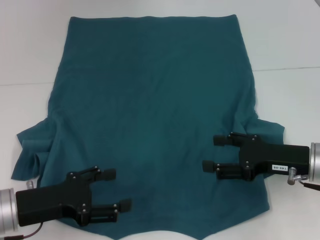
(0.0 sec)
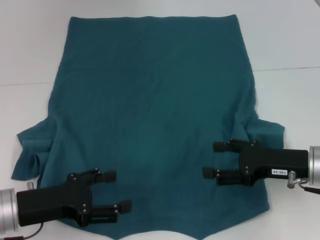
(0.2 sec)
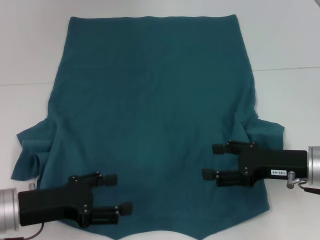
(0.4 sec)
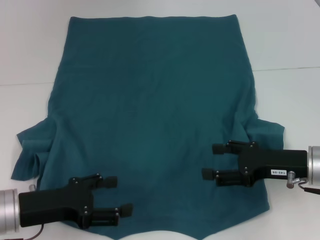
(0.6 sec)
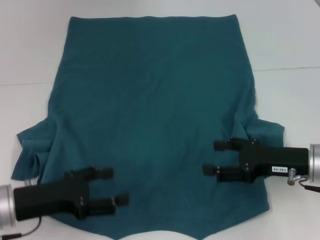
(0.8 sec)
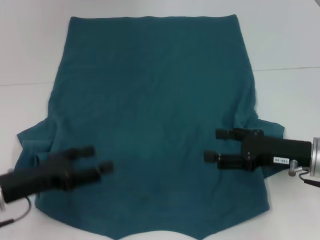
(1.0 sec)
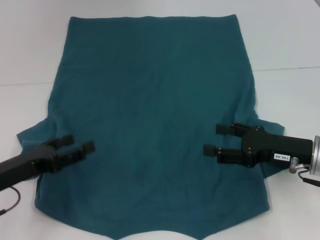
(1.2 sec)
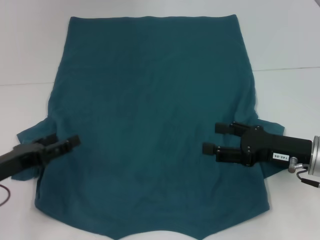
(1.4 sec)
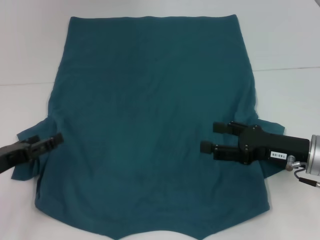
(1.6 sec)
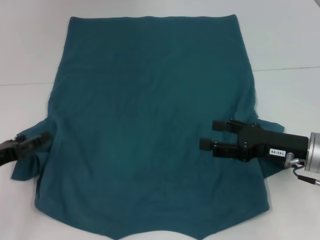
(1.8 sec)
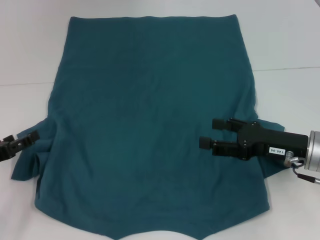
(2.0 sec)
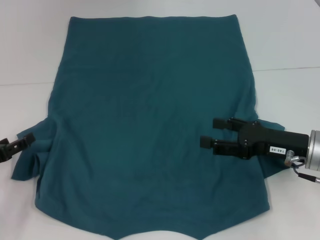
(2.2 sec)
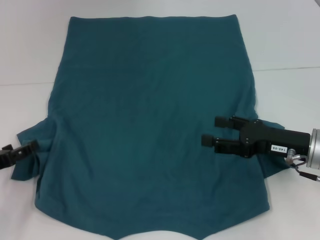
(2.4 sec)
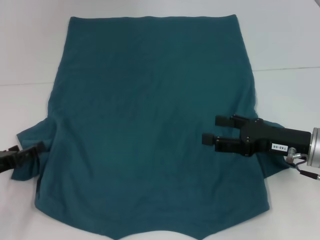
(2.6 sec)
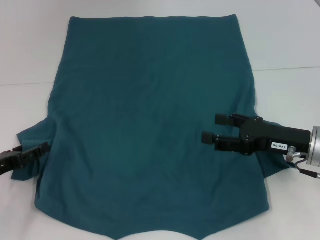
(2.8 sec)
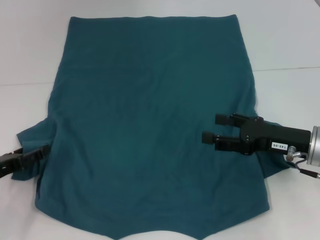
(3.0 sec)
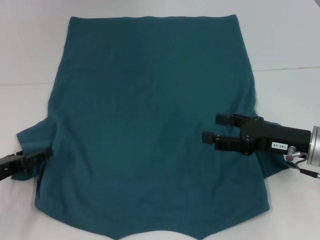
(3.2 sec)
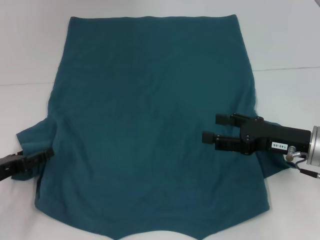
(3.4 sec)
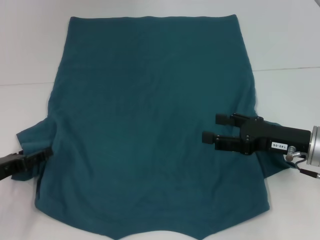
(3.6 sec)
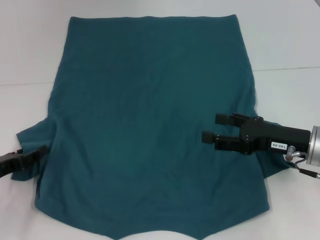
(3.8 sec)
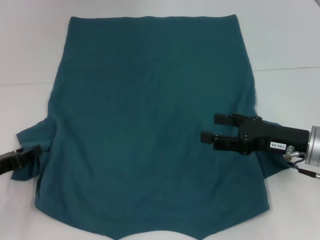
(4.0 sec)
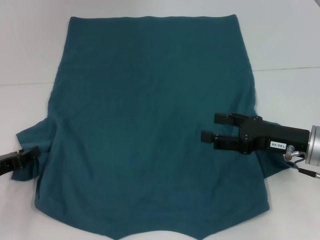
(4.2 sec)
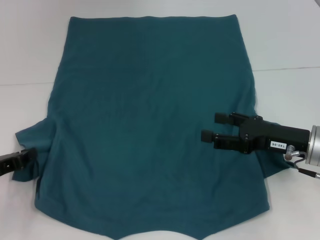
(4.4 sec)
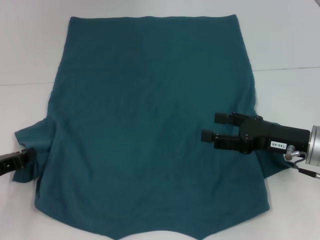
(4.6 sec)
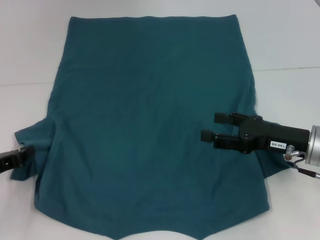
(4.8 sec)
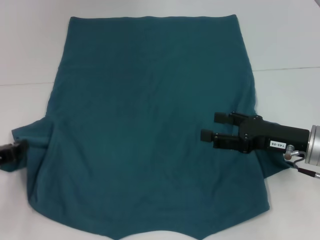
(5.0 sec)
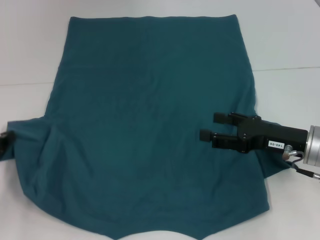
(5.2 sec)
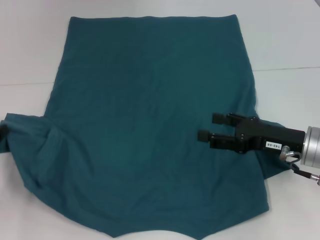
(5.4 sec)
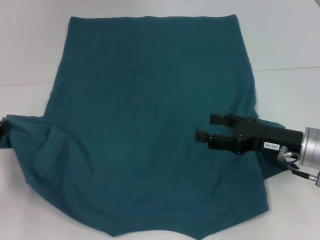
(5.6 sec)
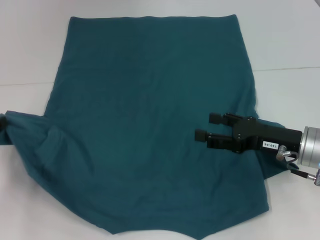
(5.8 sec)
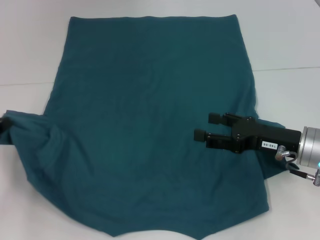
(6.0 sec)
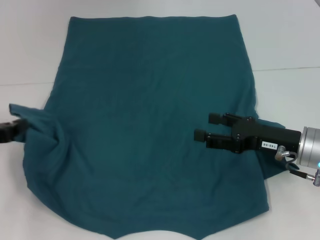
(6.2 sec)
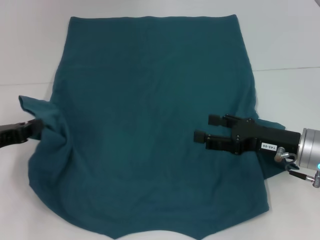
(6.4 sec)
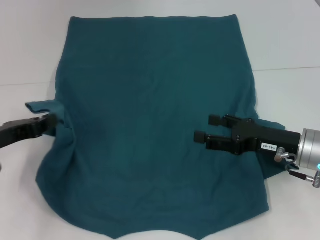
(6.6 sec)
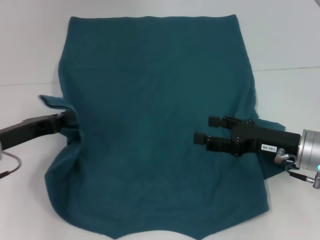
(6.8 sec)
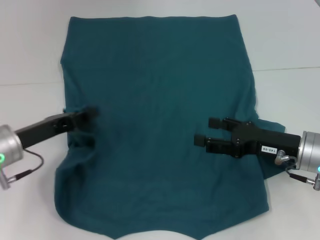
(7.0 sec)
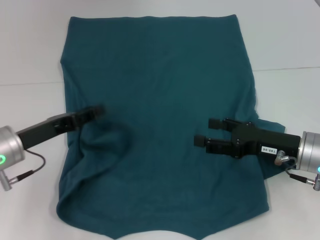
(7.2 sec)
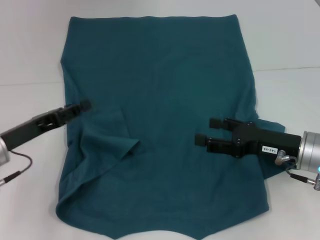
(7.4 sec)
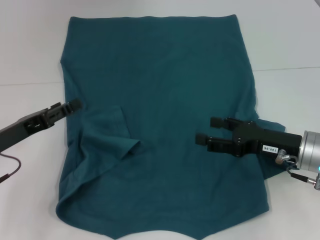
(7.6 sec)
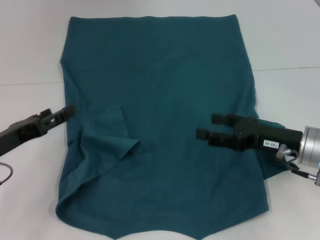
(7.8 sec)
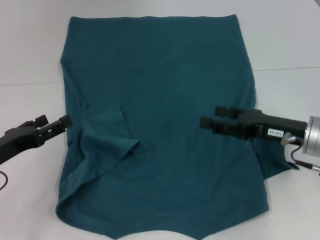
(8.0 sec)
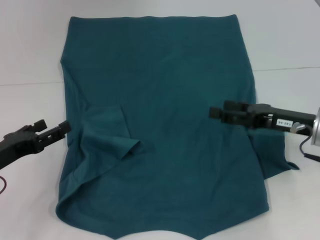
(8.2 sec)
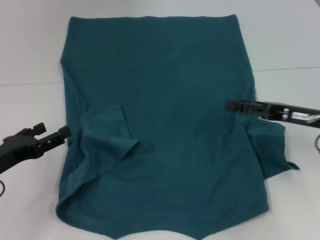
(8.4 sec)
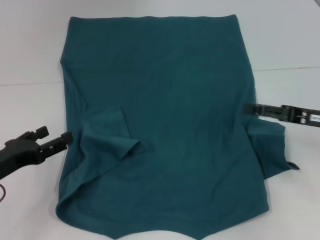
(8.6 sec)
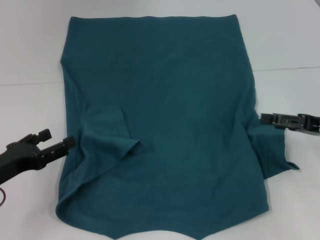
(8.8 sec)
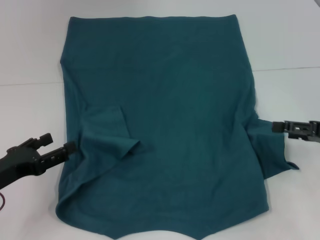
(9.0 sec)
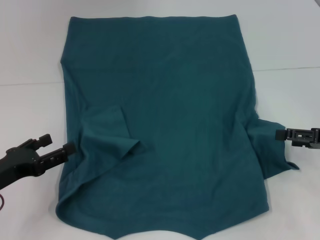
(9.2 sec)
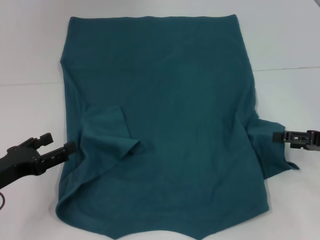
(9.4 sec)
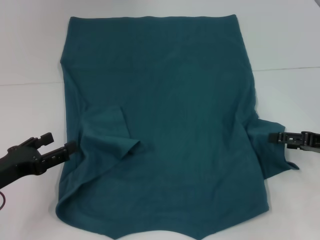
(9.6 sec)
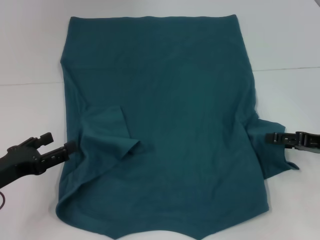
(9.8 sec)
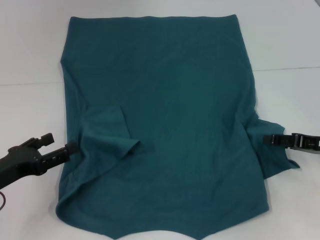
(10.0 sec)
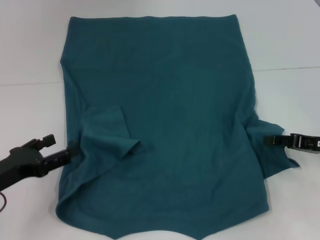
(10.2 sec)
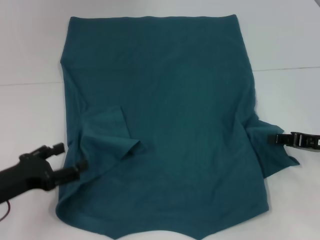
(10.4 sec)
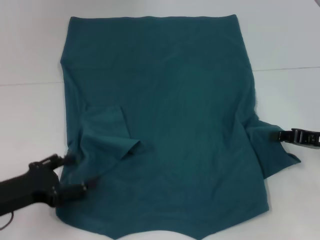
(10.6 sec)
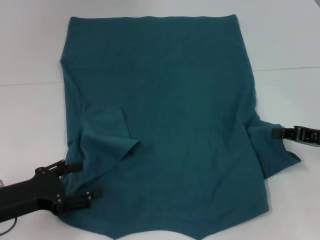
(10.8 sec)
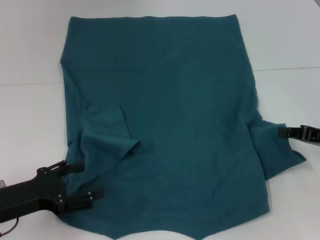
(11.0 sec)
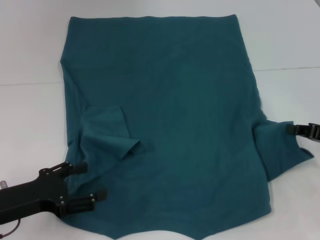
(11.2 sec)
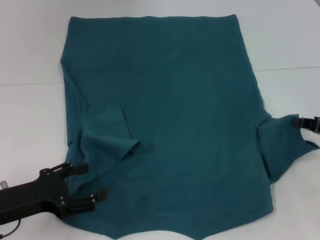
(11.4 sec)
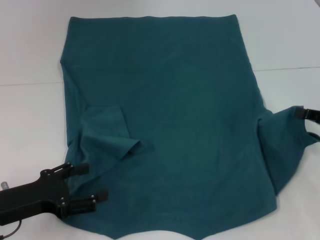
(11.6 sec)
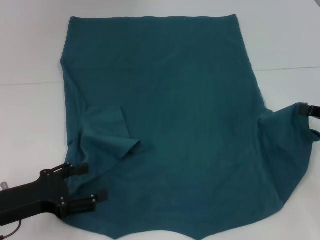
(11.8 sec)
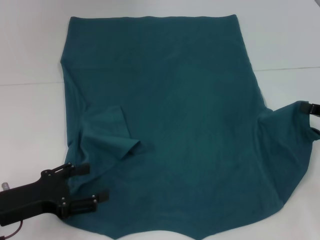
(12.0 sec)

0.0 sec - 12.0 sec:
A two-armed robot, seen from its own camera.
Step, 0.0 sec - 7.4 sec: Fold the bottom left sleeve with your left hand.
0.0 sec - 1.6 sec: The left gripper heads to the left, covering roughly 5 cm.
1.6 sec - 3.0 sec: The grippers make only small movements.
4.4 sec - 6.0 sec: The left gripper goes about 5 cm upward.
6.0 sec - 7.6 sec: The left gripper heads to the right, covering roughly 5 cm, and opens up.
7.6 sec - 9.0 sec: The left gripper changes place by some 5 cm, while the right gripper heads to the right, covering approximately 10 cm.
9.0 sec - 10.4 sec: The right gripper closes up.
10.4 sec - 12.0 sec: The right gripper closes.

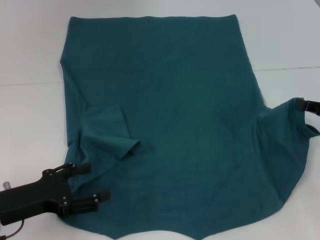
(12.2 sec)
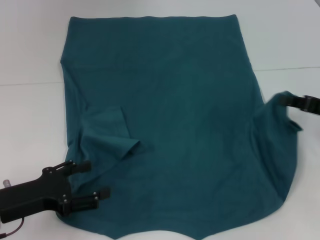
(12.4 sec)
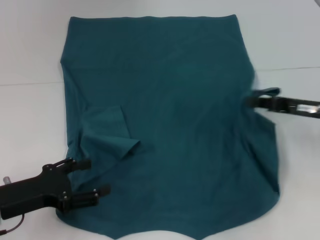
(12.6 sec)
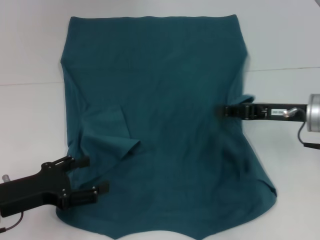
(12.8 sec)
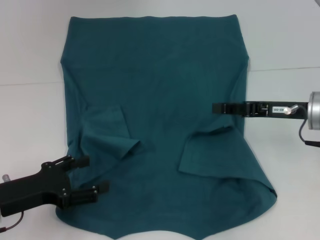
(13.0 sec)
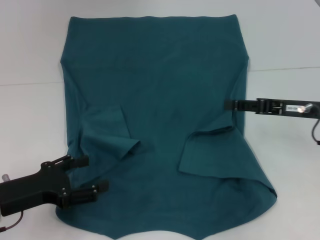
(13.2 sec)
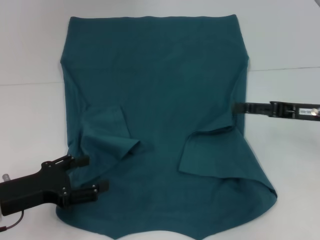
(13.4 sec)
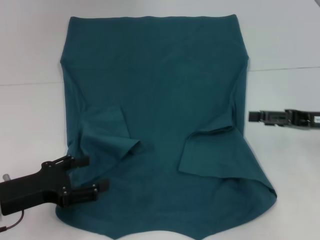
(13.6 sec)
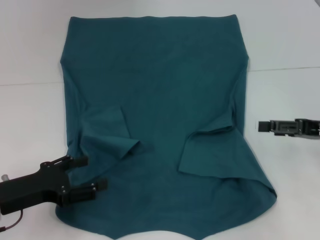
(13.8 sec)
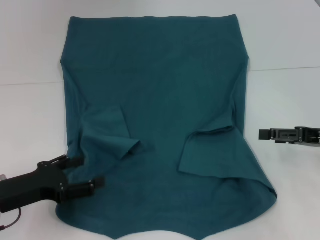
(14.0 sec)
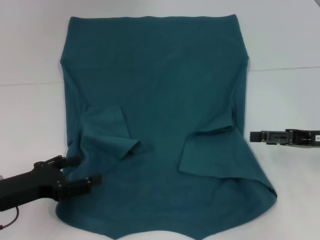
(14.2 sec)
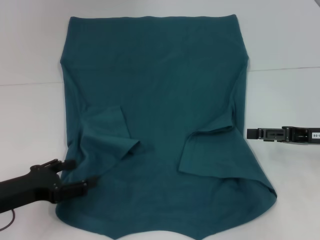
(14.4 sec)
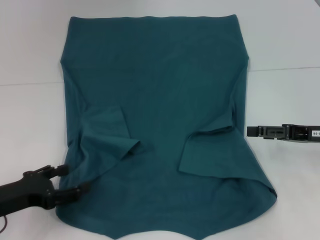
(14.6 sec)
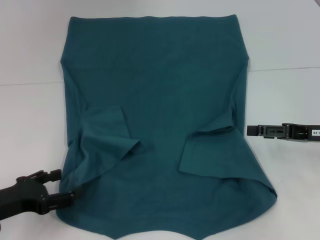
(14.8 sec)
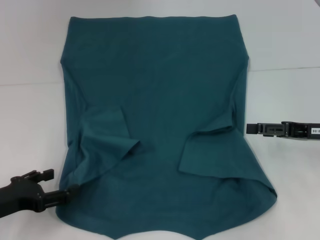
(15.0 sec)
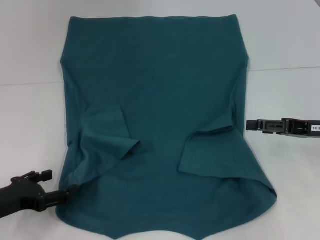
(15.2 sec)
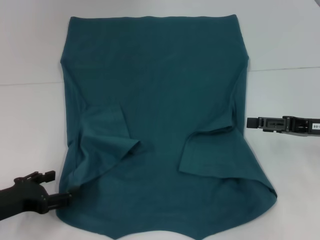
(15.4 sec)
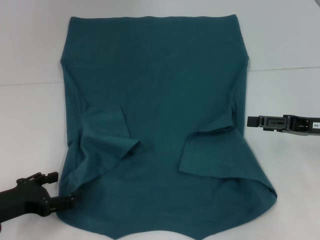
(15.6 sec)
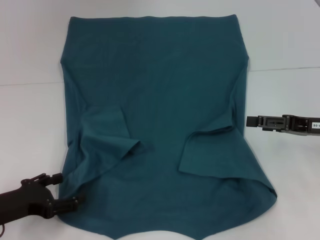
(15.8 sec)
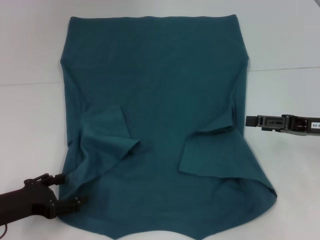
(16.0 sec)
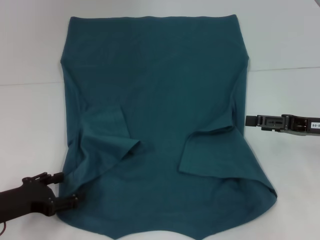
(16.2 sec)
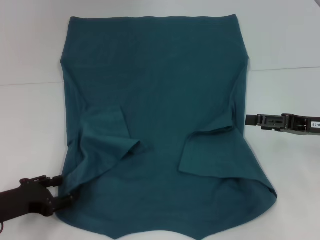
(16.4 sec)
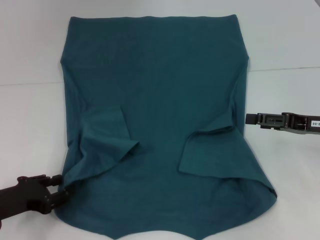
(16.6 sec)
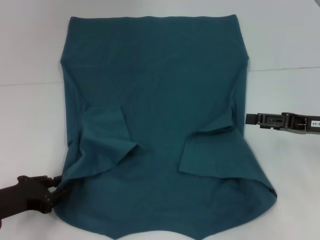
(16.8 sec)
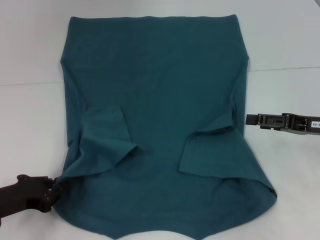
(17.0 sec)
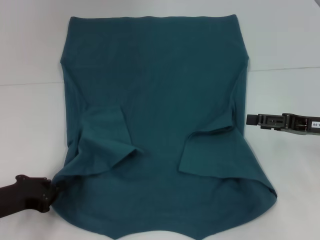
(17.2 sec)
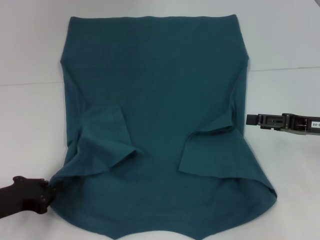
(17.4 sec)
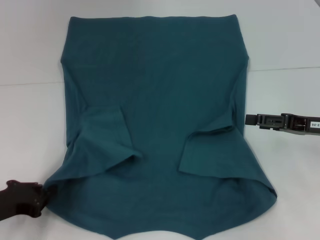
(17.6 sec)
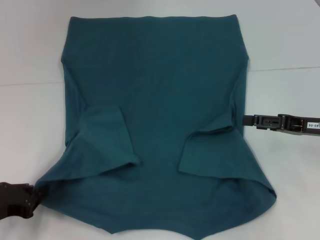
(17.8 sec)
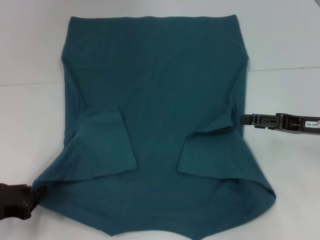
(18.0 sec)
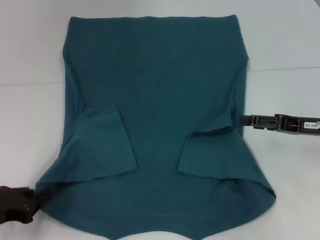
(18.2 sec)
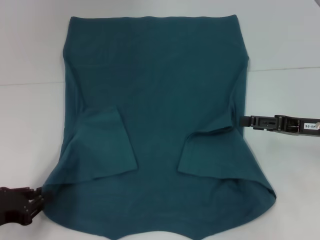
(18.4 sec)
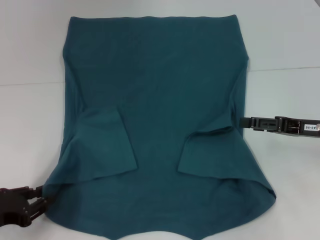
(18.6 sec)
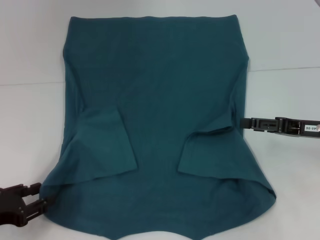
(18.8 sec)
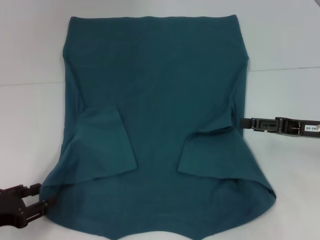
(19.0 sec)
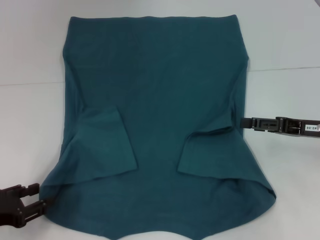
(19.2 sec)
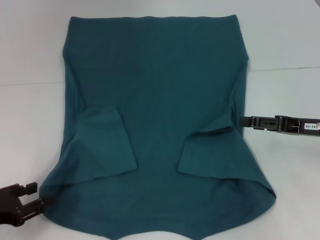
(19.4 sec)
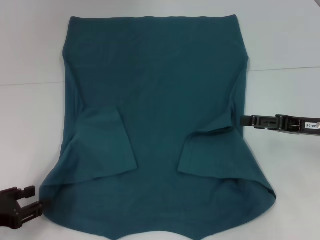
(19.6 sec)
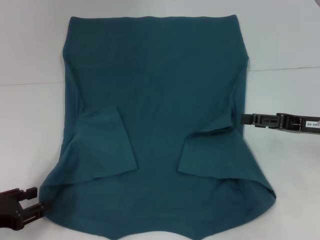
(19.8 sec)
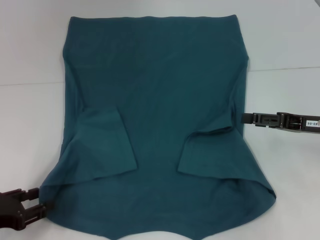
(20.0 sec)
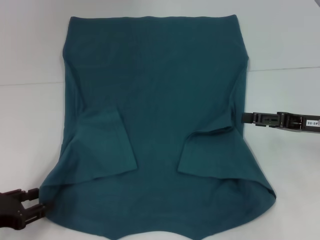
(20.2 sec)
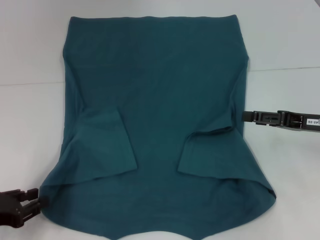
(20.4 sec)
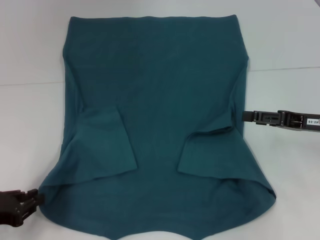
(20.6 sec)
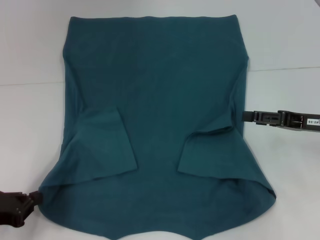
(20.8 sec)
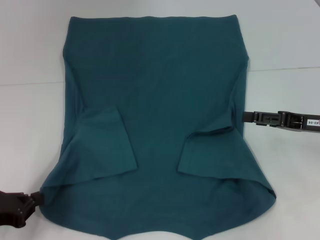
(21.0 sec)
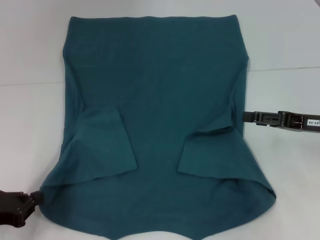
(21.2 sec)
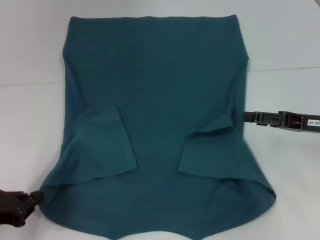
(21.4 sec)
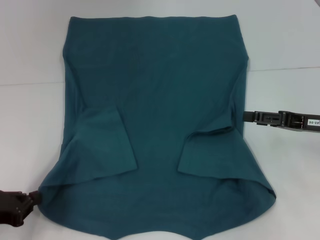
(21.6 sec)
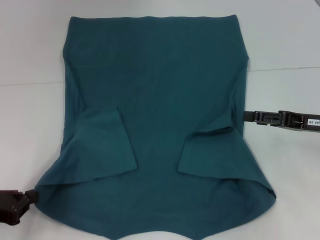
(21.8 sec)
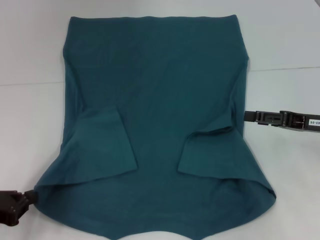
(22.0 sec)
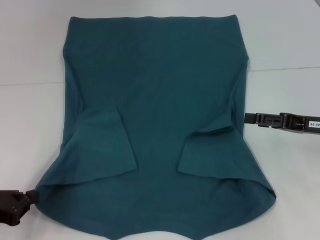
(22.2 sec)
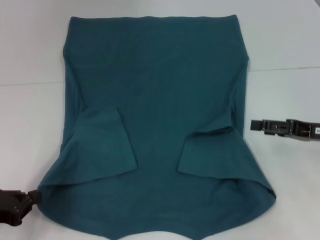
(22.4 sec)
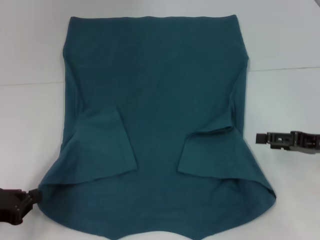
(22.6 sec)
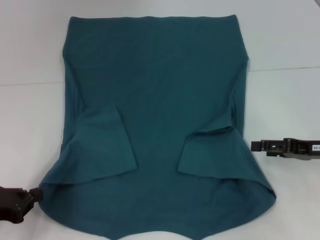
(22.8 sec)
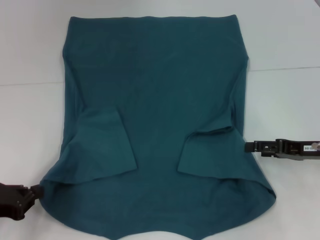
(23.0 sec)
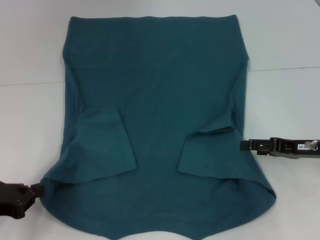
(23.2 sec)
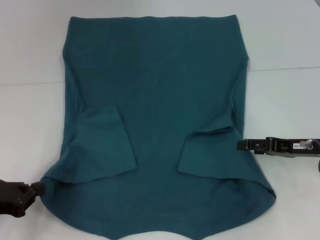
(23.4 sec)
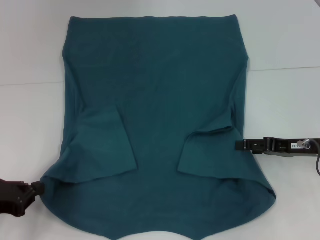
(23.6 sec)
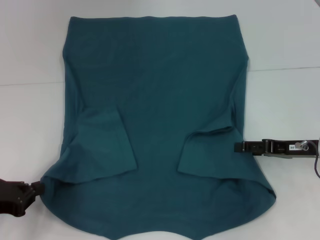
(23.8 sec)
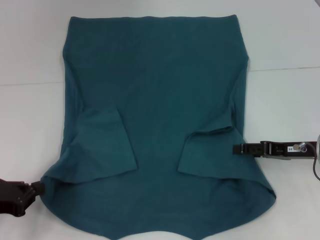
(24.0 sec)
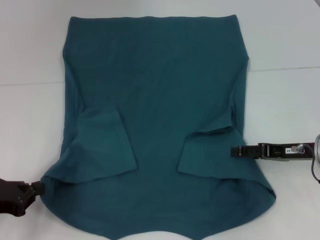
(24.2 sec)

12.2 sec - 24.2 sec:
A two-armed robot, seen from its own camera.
Step, 13.4 sec - 22.0 sec: Grab the bottom left corner with your left hand.
12.2 sec - 13.8 sec: The right gripper goes to the left and returns, some 10 cm each way, and opens its fingers.
13.8 sec - 16.6 sec: There are only small adjustments of the grippers.
16.6 sec - 18.2 sec: The left gripper closes.
18.2 sec - 19.8 sec: The left gripper opens up.
19.8 sec - 21.2 sec: The left gripper closes up.
21.2 sec - 22.6 sec: The grippers make only small movements.
22.6 sec - 24.2 sec: The right gripper moves roughly 5 cm.
